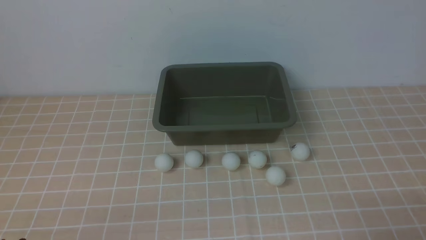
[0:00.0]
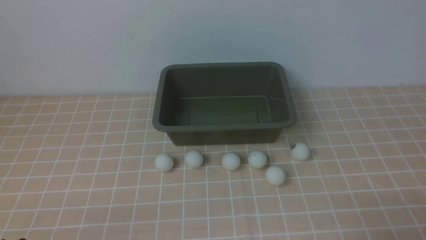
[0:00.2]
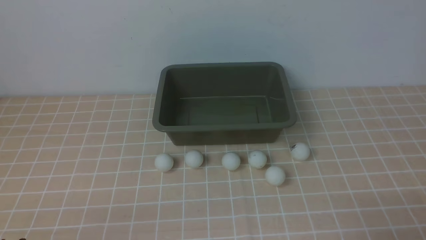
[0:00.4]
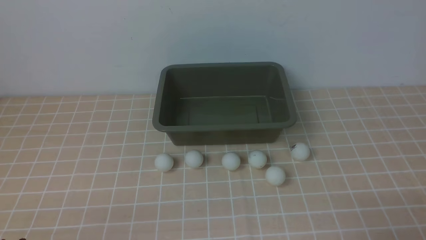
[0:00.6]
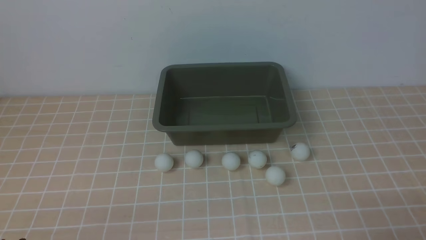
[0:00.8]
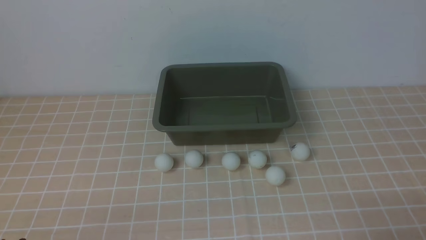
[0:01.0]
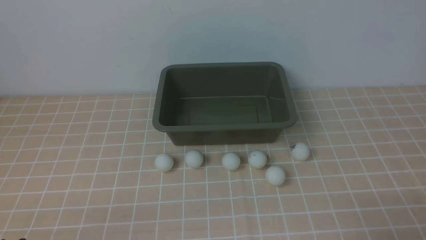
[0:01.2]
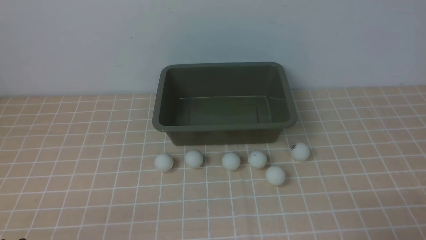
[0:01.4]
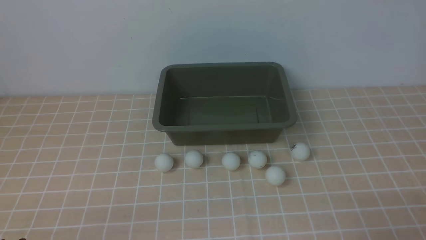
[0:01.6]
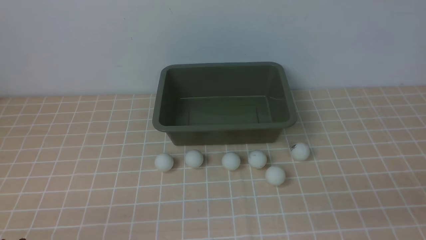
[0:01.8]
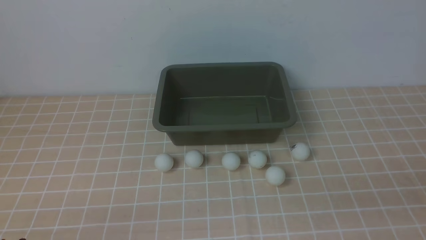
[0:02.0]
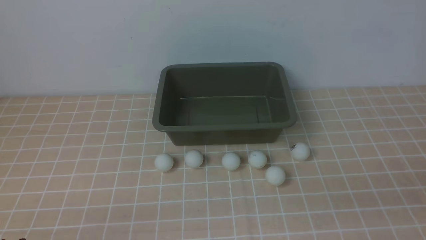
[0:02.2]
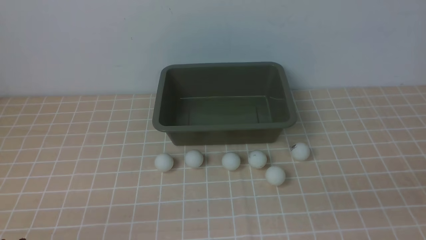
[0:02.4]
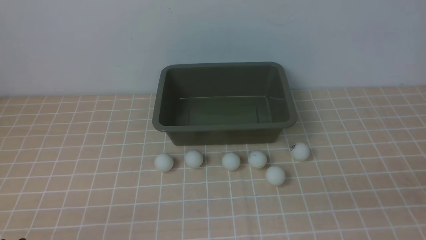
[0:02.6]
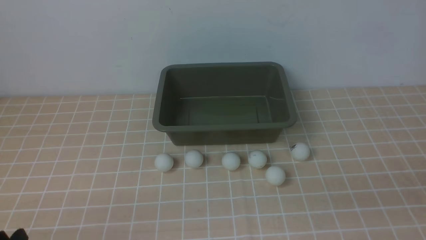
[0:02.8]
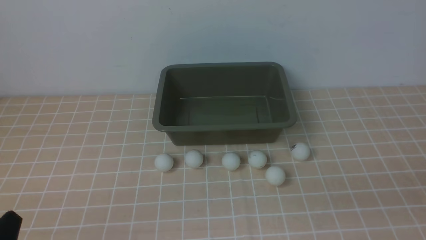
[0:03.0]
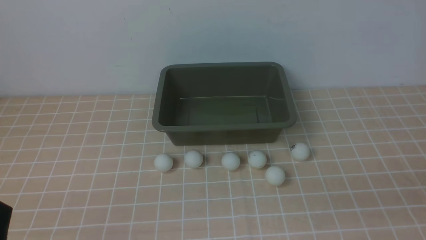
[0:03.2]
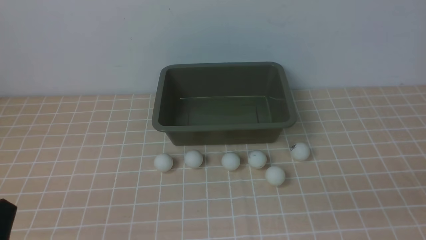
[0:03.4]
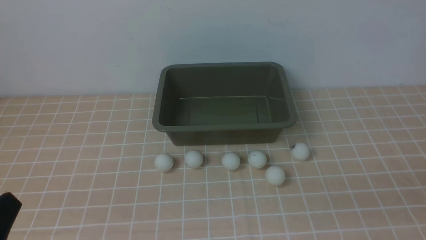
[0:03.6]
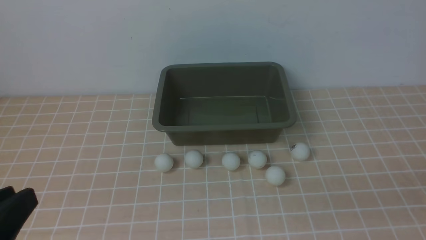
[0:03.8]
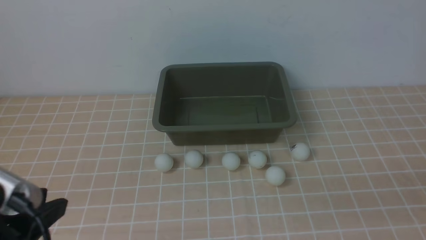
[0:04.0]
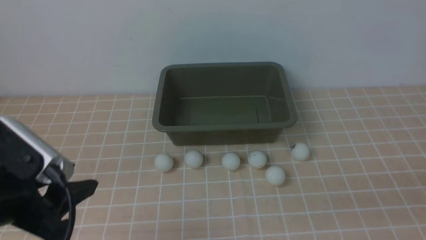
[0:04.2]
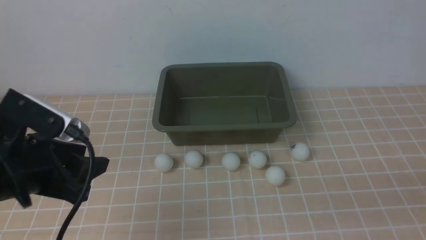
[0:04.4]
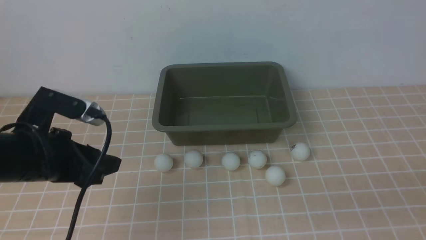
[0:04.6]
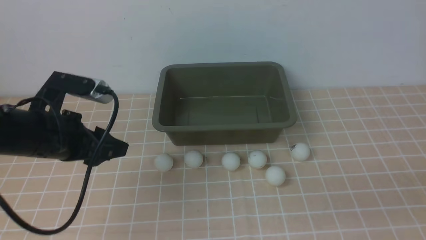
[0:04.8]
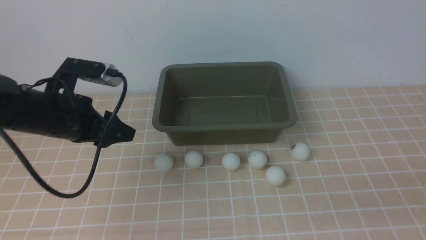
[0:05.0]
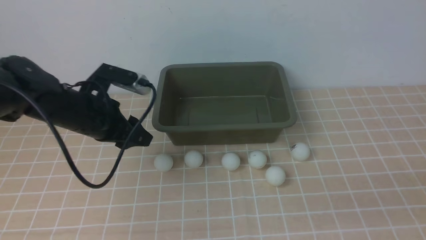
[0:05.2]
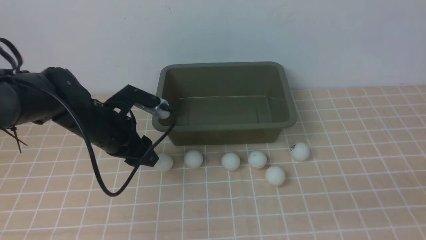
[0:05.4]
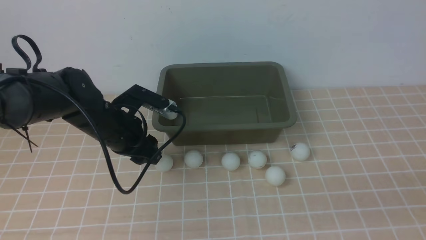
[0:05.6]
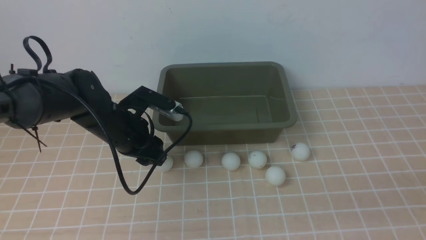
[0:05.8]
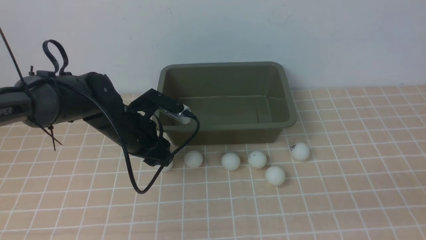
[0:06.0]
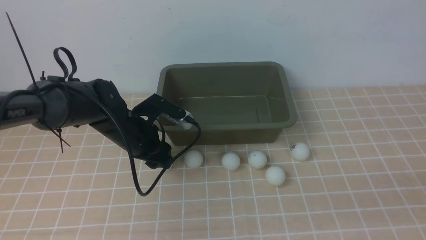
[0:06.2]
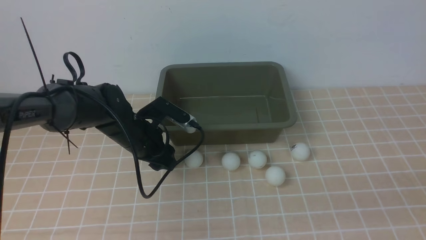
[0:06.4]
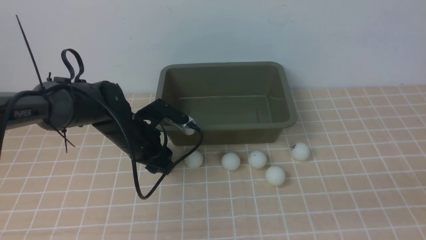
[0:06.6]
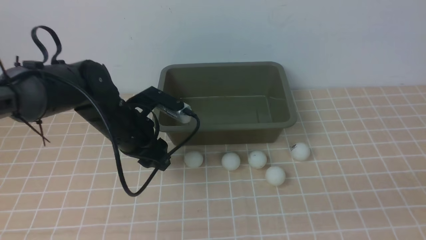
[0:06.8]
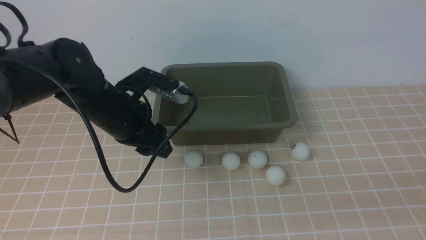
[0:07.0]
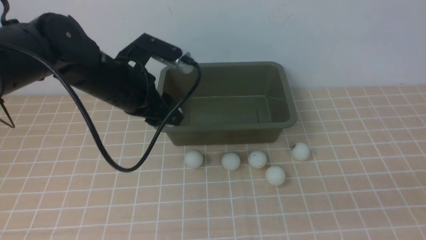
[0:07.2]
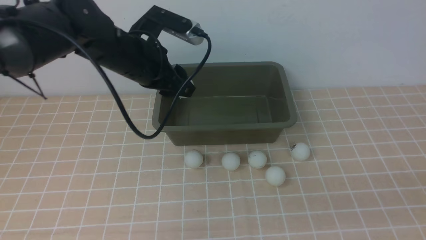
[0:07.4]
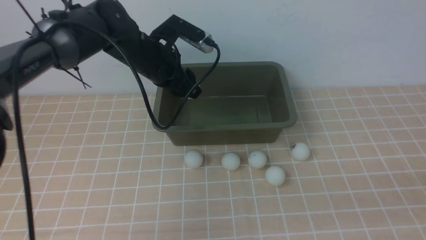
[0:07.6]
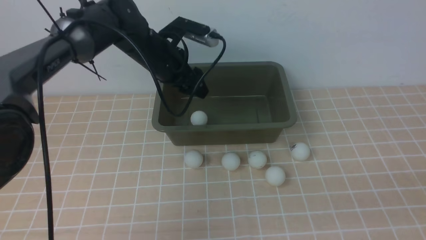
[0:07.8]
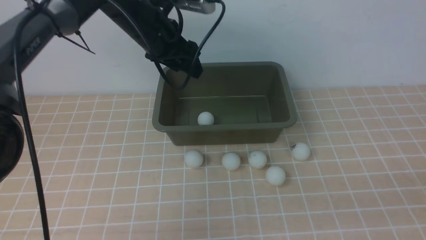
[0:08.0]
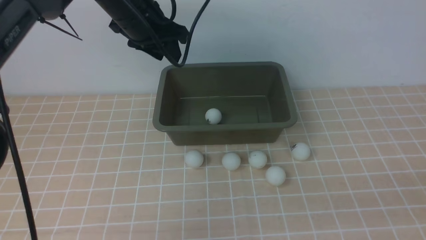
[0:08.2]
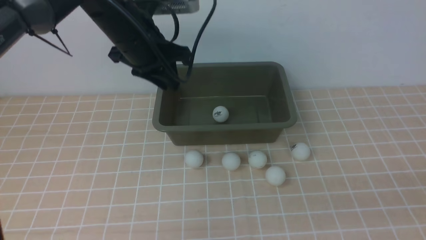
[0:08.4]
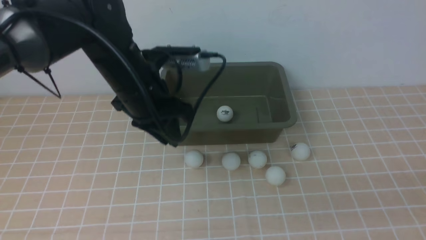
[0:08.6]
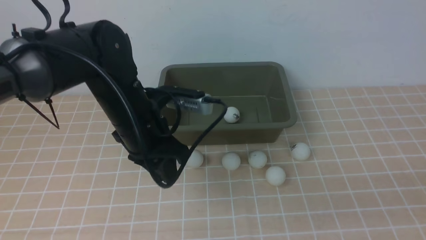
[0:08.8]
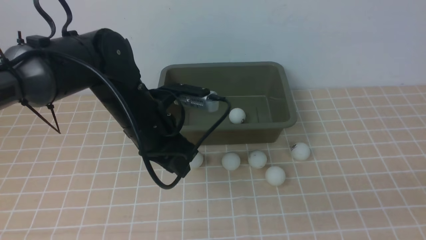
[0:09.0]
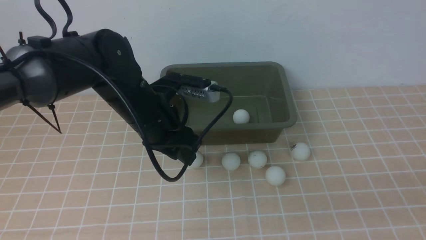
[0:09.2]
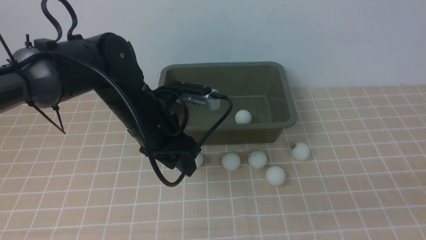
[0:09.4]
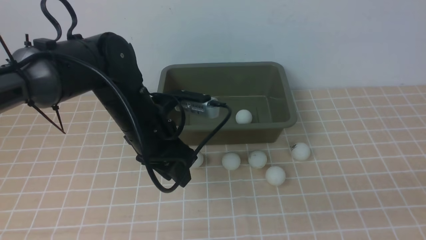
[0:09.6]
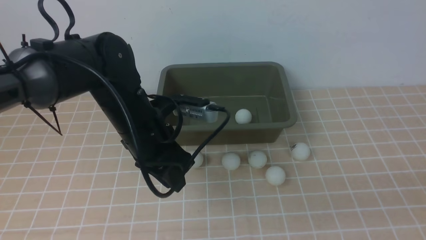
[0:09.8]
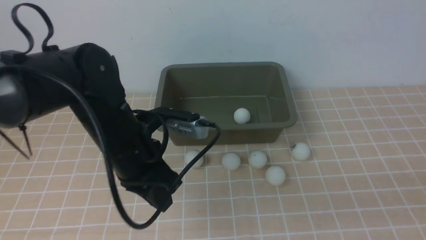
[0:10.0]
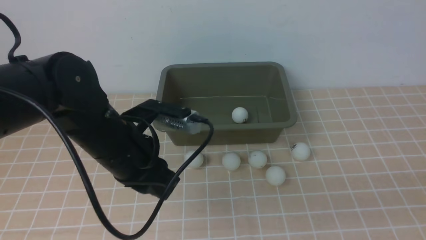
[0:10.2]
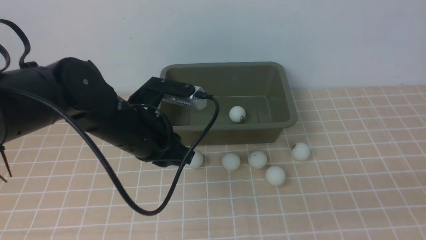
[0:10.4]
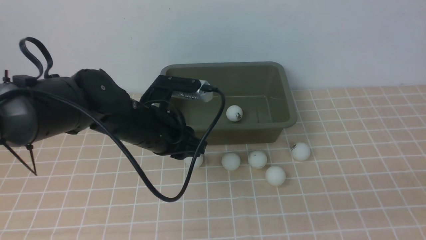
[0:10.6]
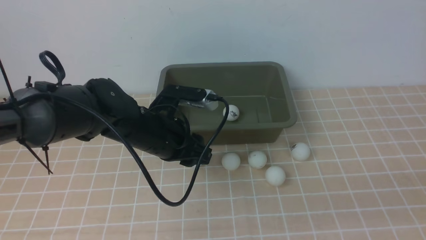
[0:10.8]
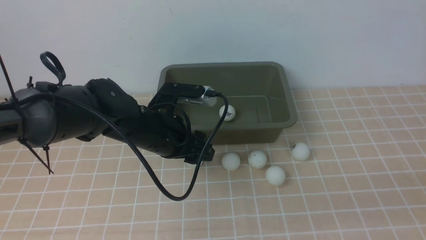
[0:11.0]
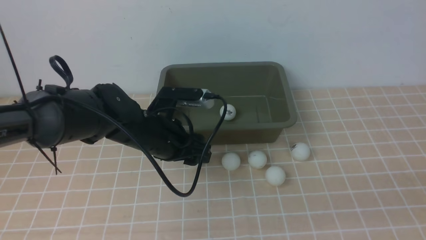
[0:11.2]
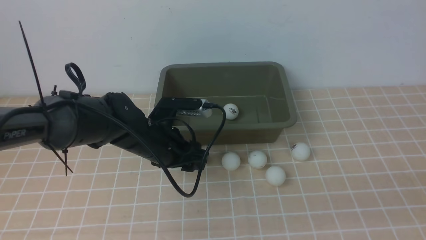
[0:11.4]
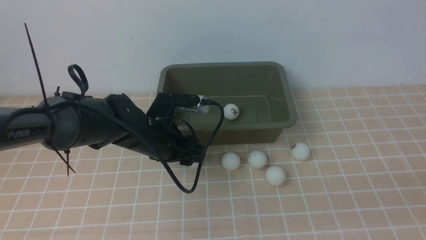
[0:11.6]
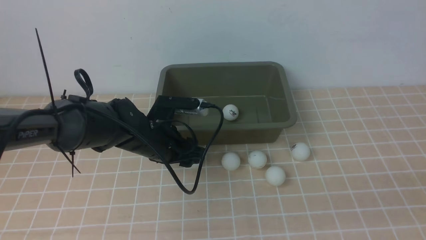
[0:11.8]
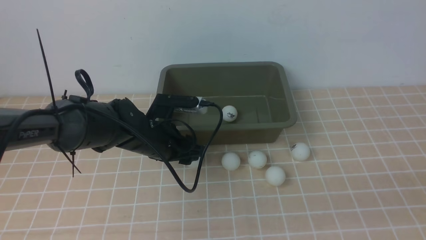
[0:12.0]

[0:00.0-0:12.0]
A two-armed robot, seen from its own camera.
Step, 0:00.0 to 0:06.8: use the left arm to clamp the table tennis ball closest to it.
Step, 0:07.0 to 0:08.0: use the left arm to put the table tennis ball into the box.
0:03.0 to 0:04.4: The left gripper travels forward and upward by approximately 15 cm, and opens up.
0:04.4 to 0:06.0: The left gripper shifts some 20 cm forward, downward and to the right.
0:06.0 to 0:07.6: The left gripper heads upward and forward, covering roughly 10 cm.
0:07.6 to 0:09.0: The left gripper moves backward, roughly 10 cm, and closes up.
0:09.0 to 0:10.4: The left gripper opens and closes again.
0:10.4 to 0:12.0: The left gripper shifts about 10 cm downward and forward, and opens.

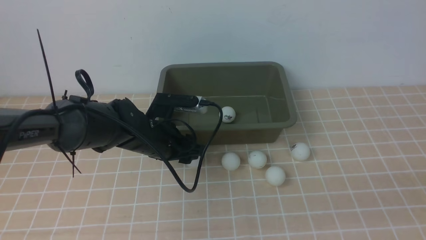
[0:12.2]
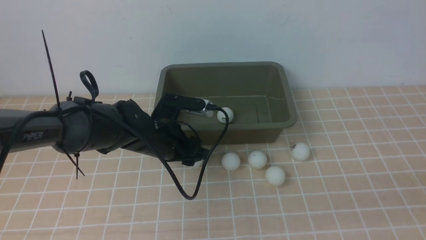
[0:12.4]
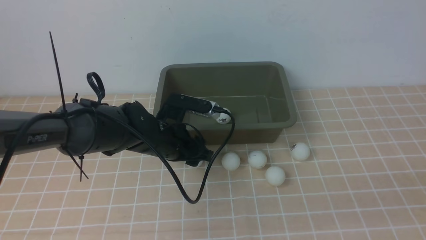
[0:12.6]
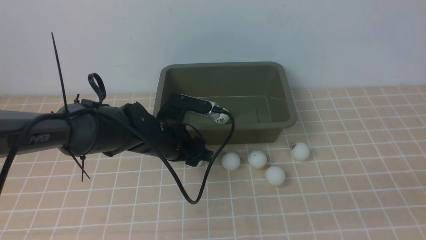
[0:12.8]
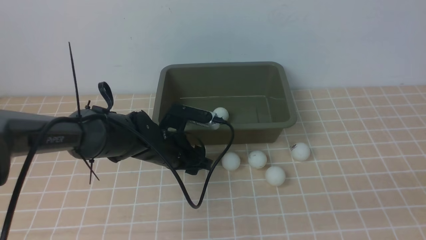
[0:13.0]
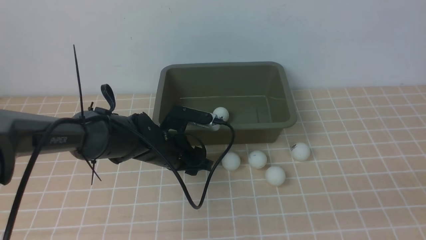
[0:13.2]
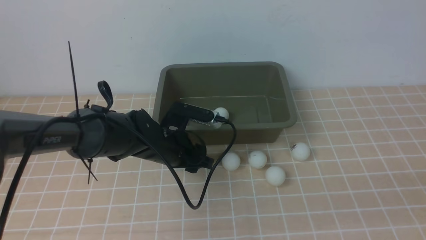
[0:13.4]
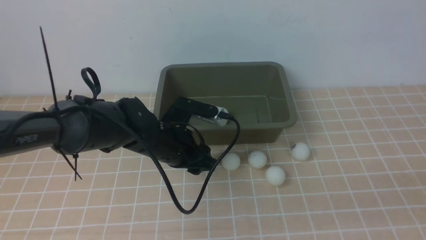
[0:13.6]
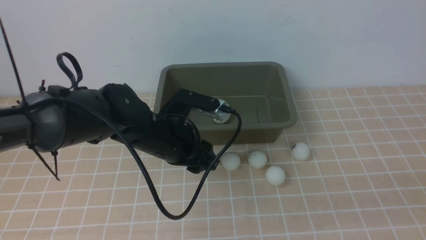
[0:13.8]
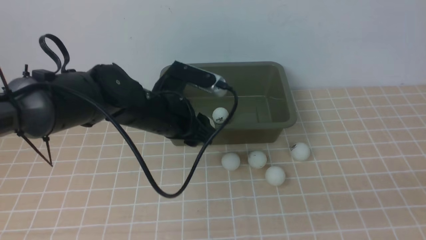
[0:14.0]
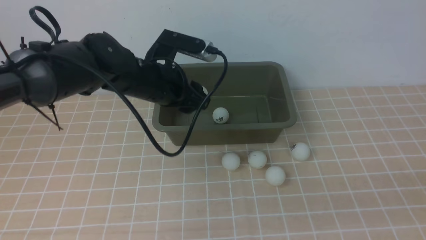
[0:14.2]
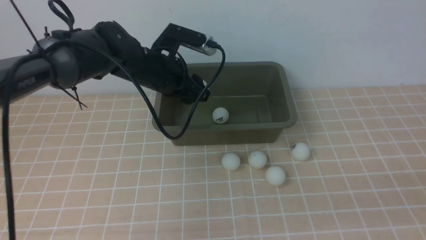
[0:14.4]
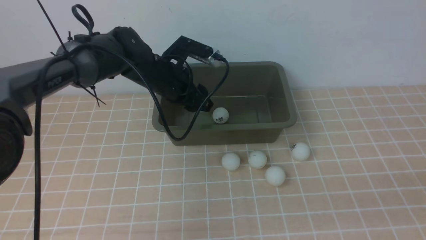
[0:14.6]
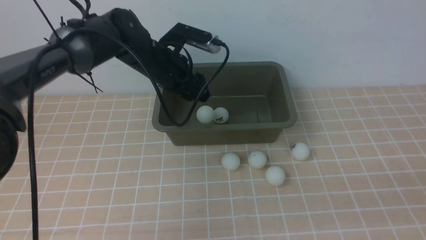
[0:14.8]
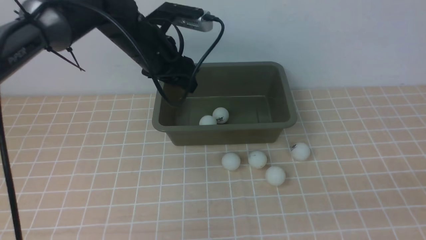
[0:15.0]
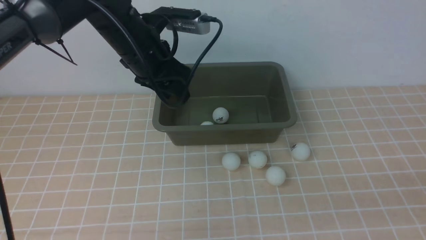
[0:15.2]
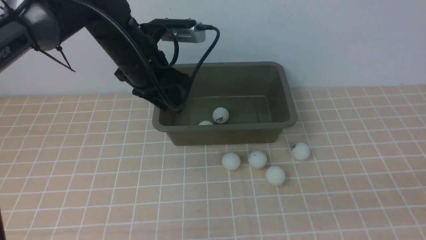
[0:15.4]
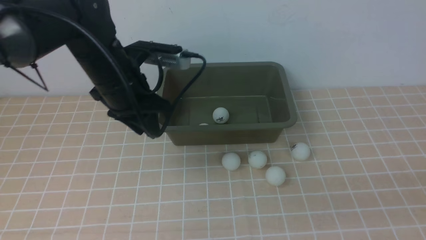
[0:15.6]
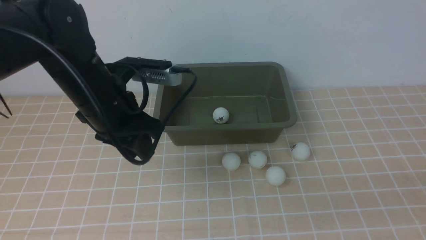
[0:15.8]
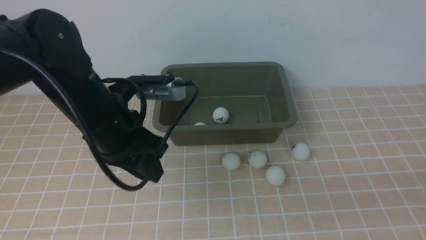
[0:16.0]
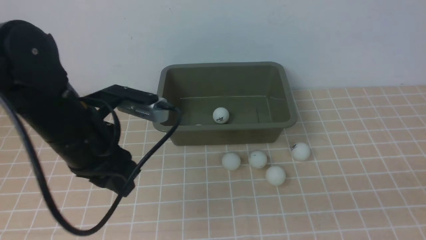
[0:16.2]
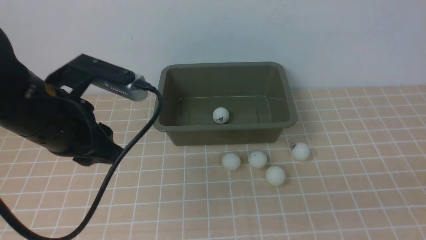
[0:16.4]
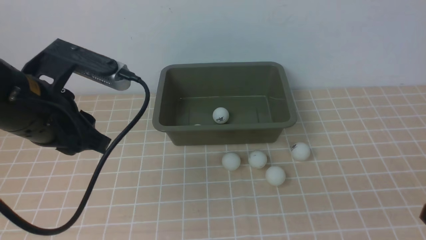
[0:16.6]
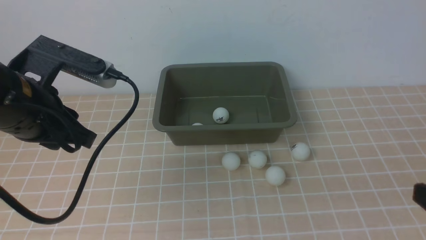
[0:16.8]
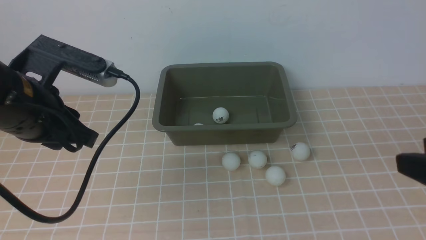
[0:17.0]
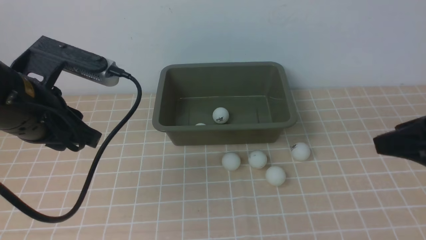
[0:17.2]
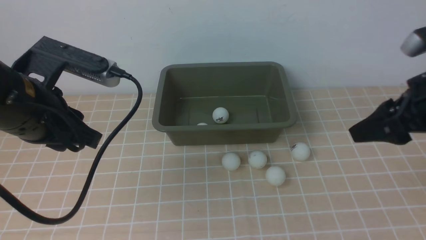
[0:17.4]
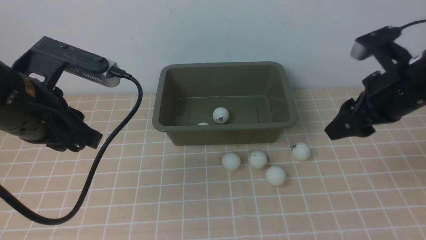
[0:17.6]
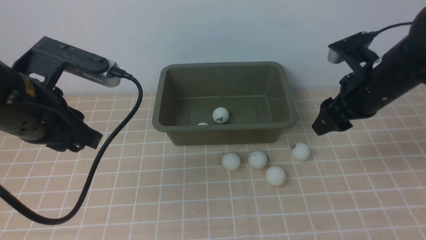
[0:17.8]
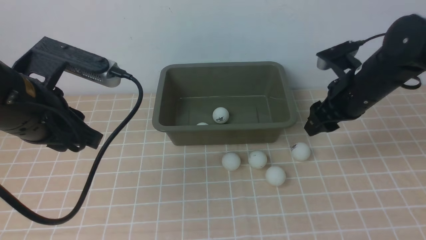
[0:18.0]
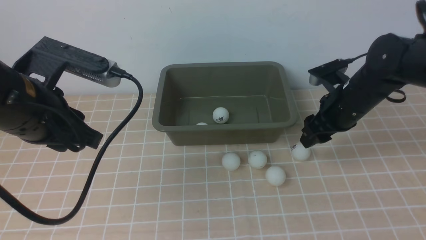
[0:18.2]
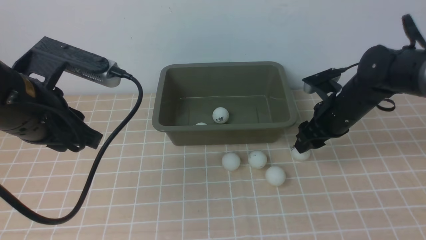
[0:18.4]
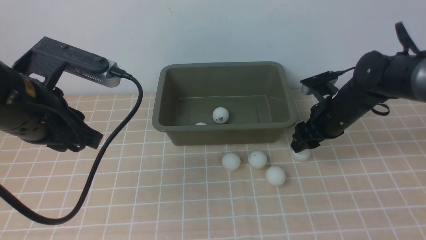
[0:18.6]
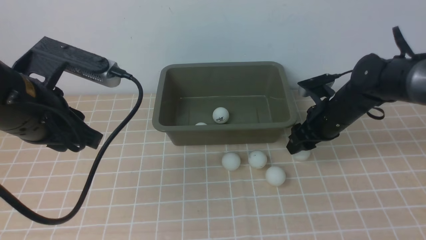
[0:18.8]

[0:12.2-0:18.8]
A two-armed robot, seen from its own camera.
Step, 0:13.8 to 0:15.2: use the left arm to put the table tennis ball into the box.
0:12.2 to 0:13.8: The left gripper moves approximately 5 cm.
0:13.8 to 0:15.4: The left gripper moves upward and forward, approximately 10 cm, and closes.
0:15.4 to 0:17.2: The right gripper heads forward and upward, covering roughly 20 cm. Meanwhile the left gripper travels backward and to the left by some 15 cm.
0:17.2 to 0:18.8: The right gripper travels forward and downward by roughly 25 cm.
